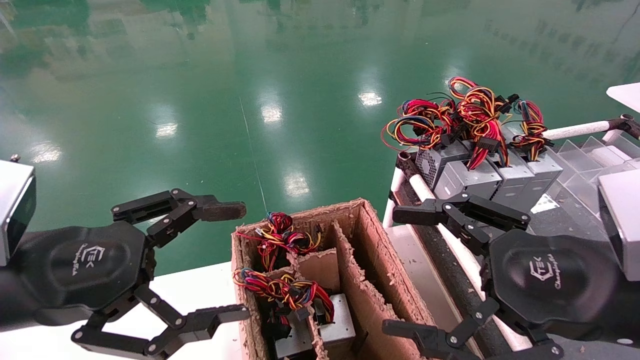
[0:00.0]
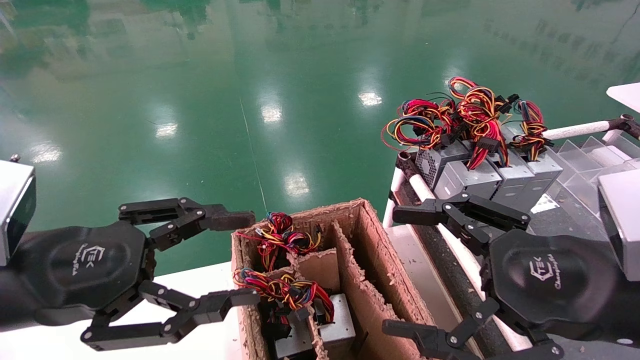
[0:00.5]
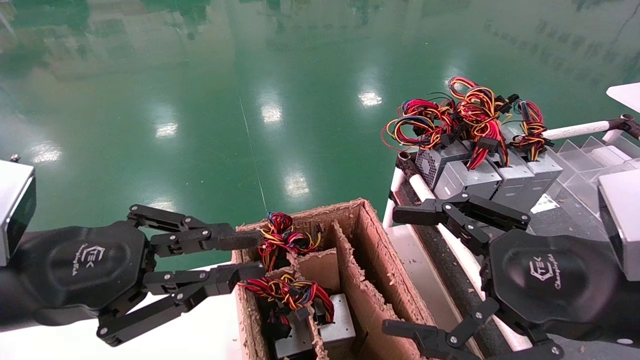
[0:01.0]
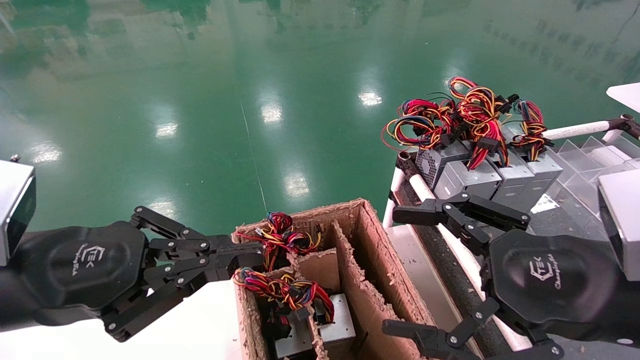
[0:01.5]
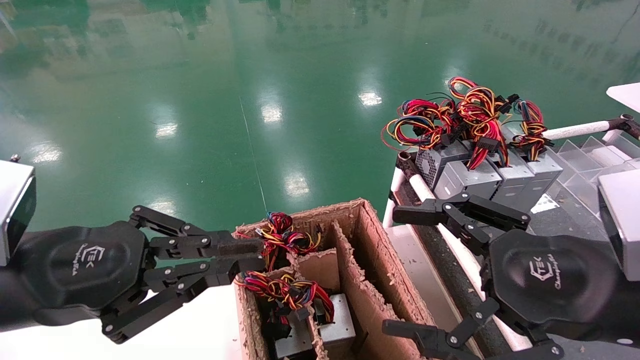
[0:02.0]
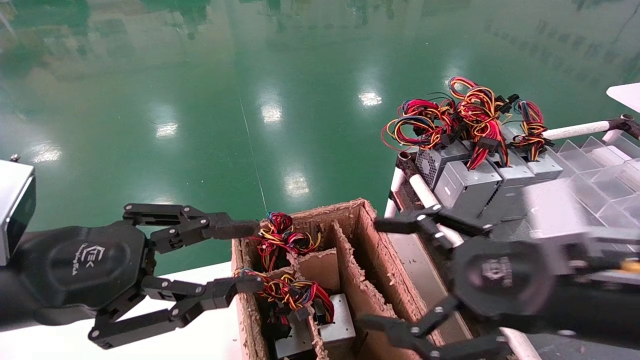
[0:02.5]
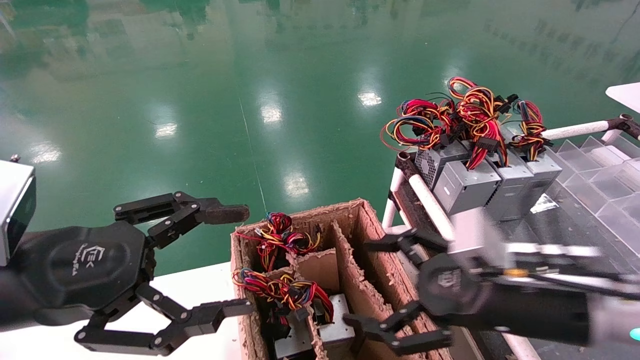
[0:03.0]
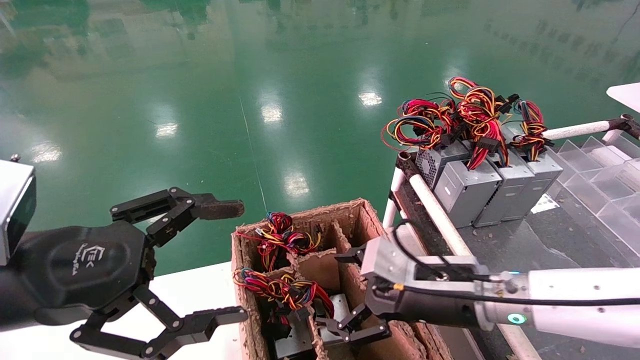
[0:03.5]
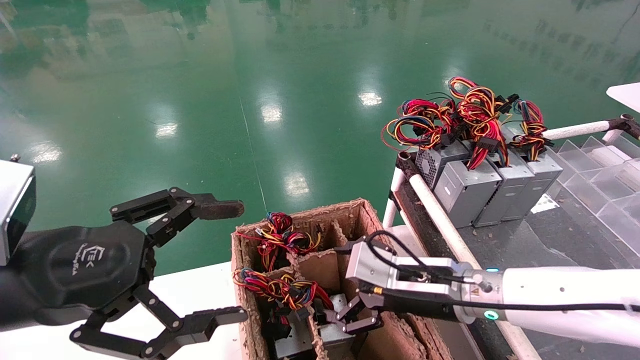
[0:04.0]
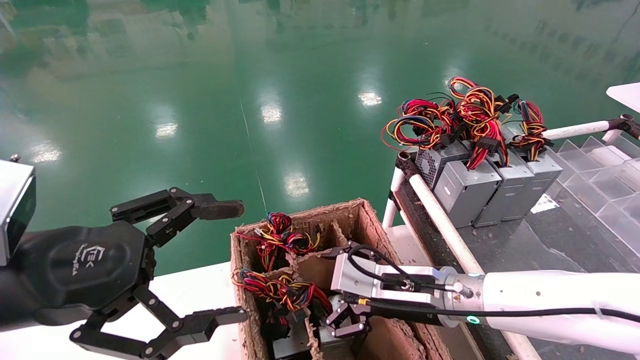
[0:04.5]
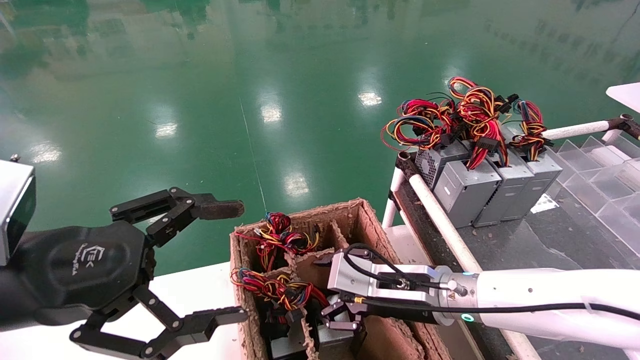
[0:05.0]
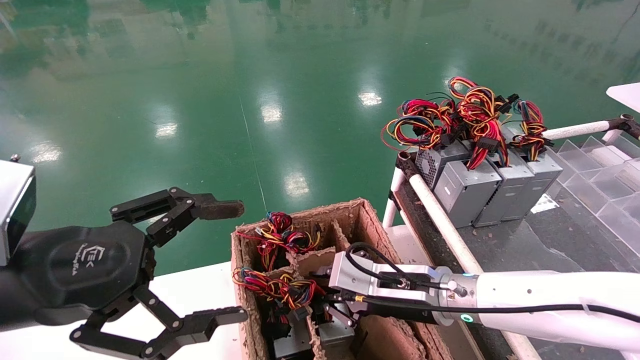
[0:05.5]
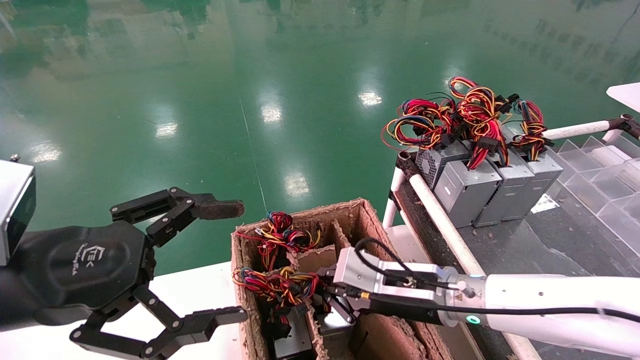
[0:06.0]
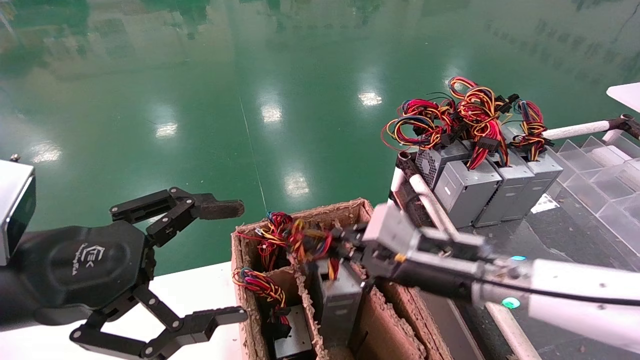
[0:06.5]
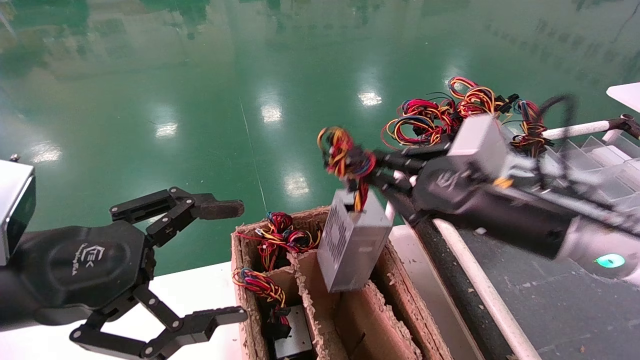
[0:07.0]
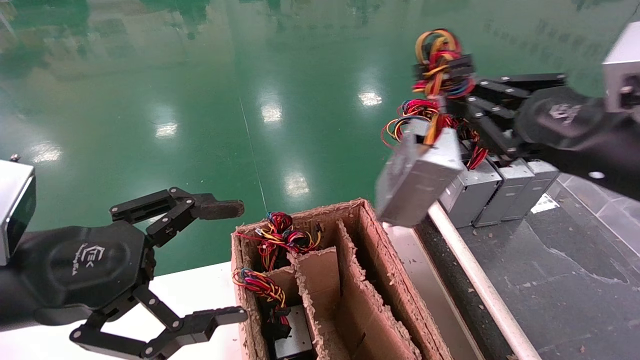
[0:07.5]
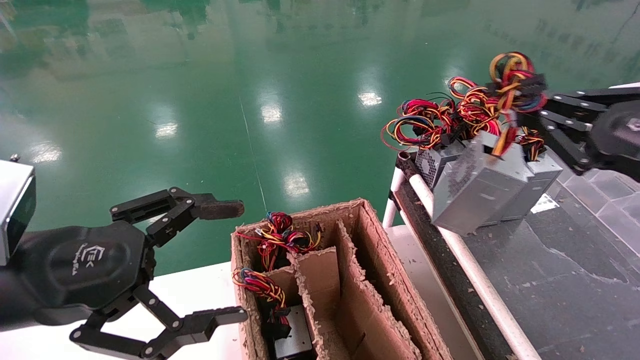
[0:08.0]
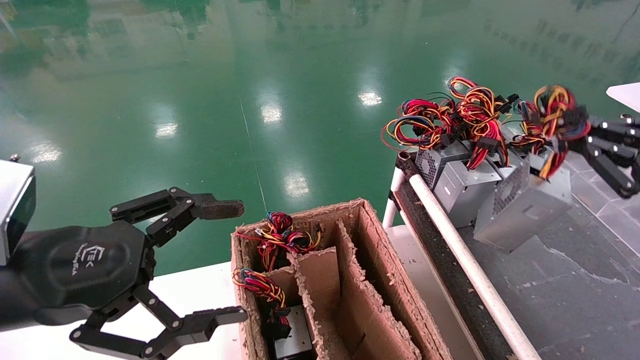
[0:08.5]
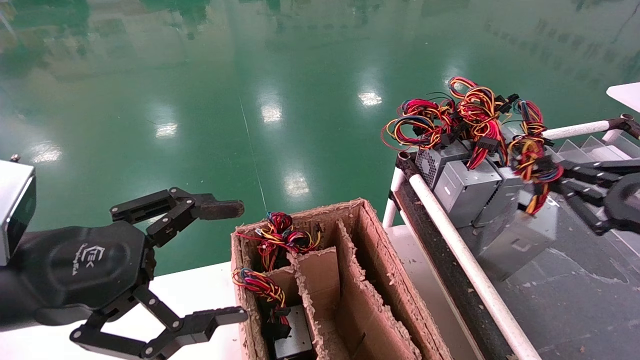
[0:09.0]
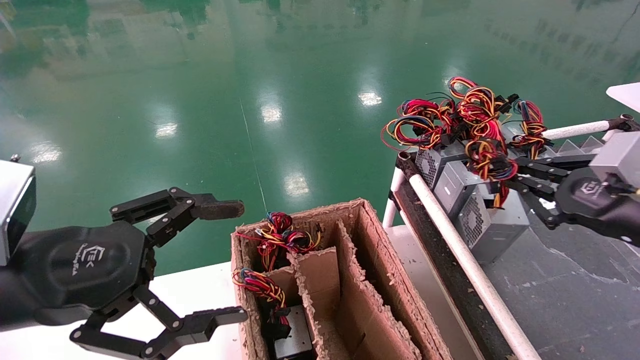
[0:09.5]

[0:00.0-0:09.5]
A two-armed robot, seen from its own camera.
Step, 0:01.5 to 0:05.5: Grab and lift the power supply from the large box.
0:00.0 to 0:02.0: The left gripper closes.
0:02.0 to 0:04.0: The right gripper heads forward, to the left and downward, covering about 20 cm, while the left gripper opens its fingers.
0:04.0 to 0:05.5: The right gripper closes up.
0:05.5 to 0:07.5: The right gripper heads upward, to the right and backward, covering roughly 25 cm.
0:07.5 to 0:09.5: The right gripper shifts some 10 cm to the right and downward.

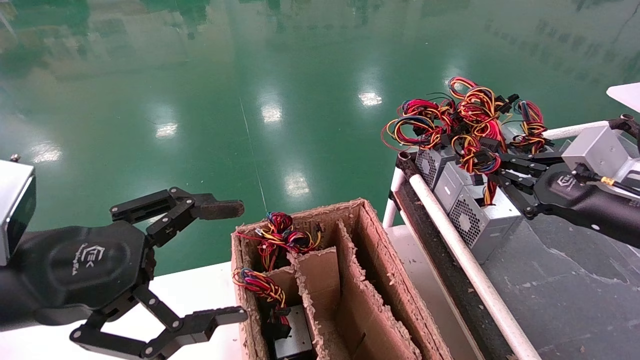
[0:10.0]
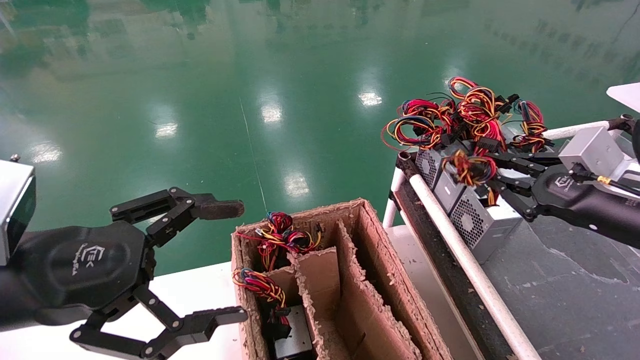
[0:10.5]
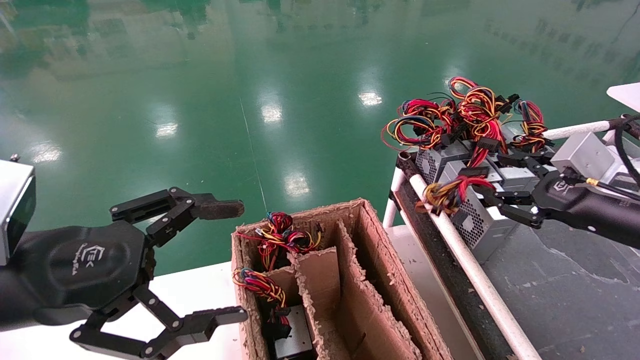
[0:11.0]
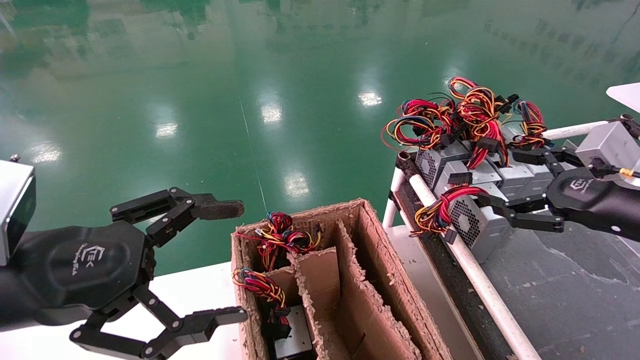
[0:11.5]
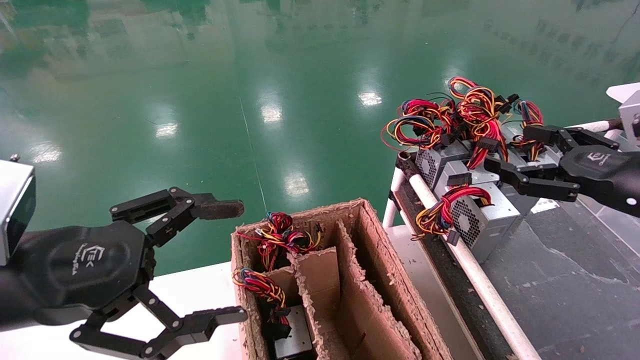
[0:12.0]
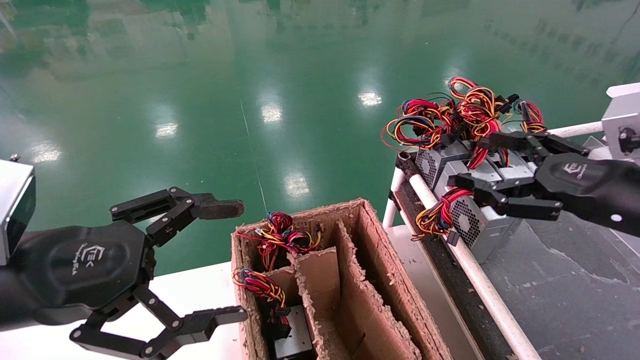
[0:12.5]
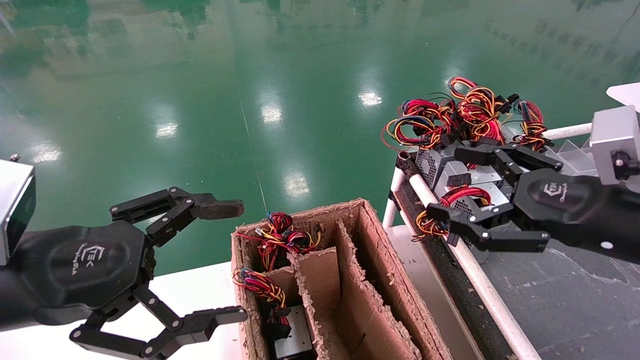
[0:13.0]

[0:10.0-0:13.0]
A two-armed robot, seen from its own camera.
0:10.0 to 0:11.5: The right gripper opens.
0:11.5 to 0:13.0: The right gripper heads to the left, covering roughly 5 cm.

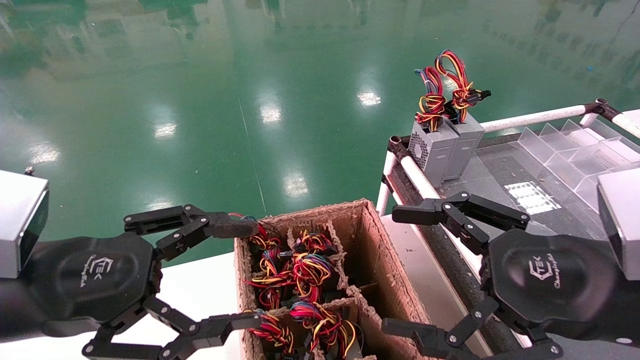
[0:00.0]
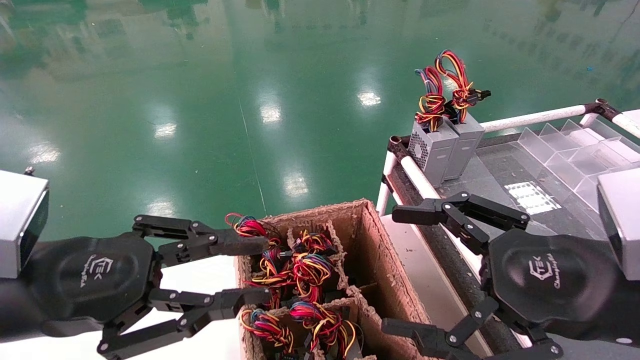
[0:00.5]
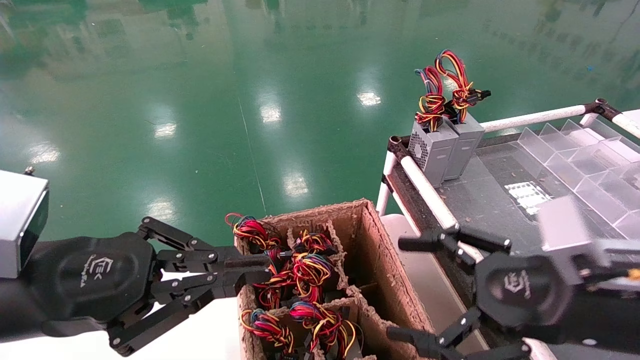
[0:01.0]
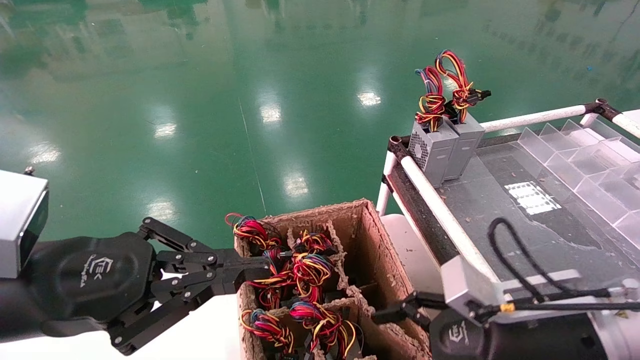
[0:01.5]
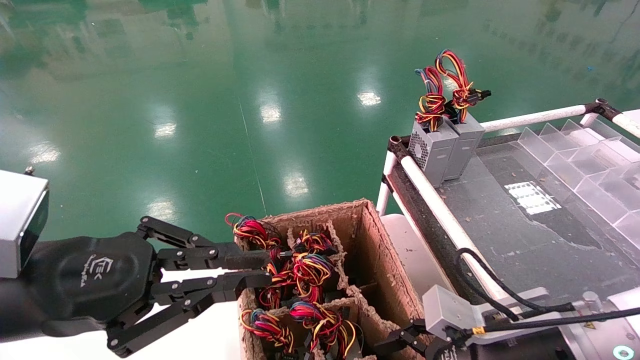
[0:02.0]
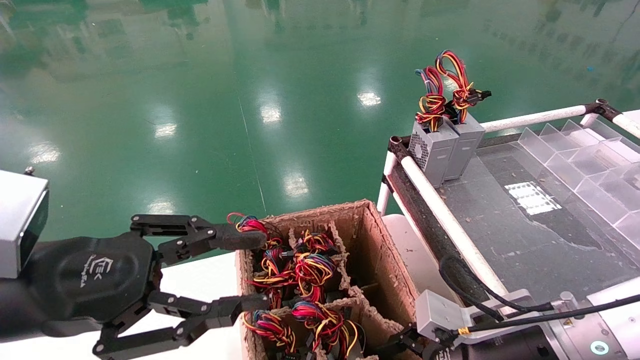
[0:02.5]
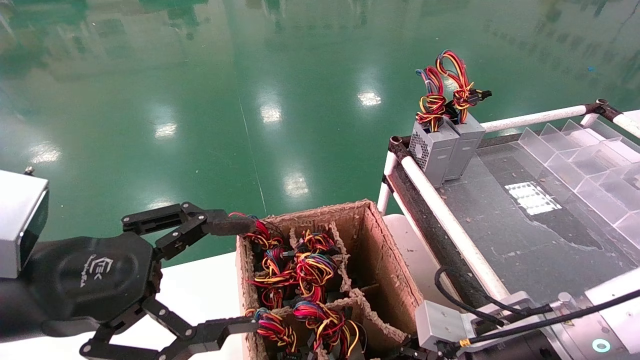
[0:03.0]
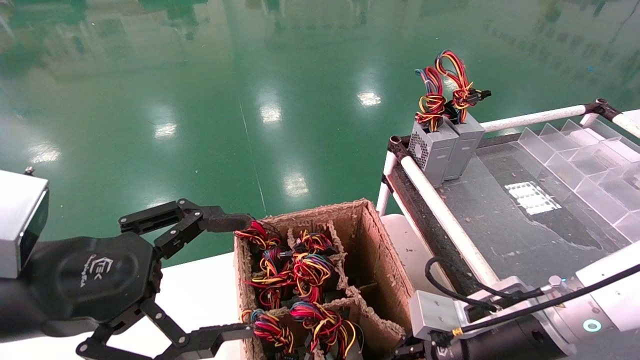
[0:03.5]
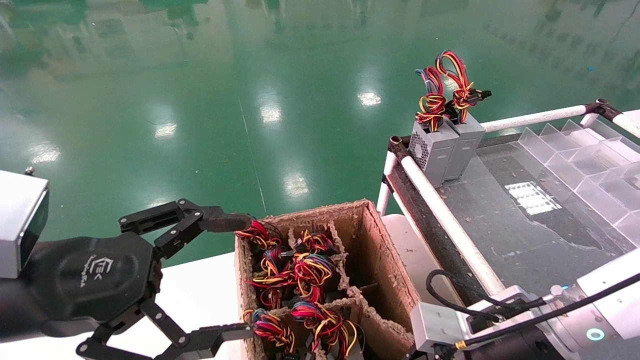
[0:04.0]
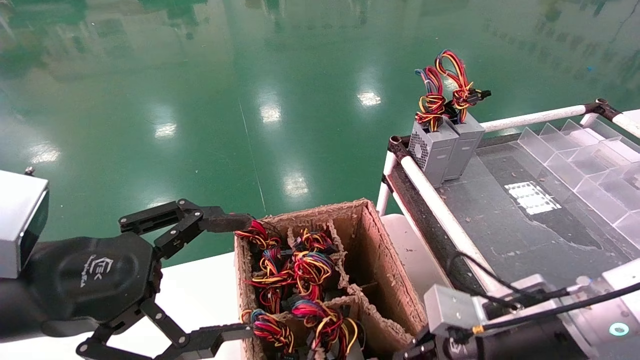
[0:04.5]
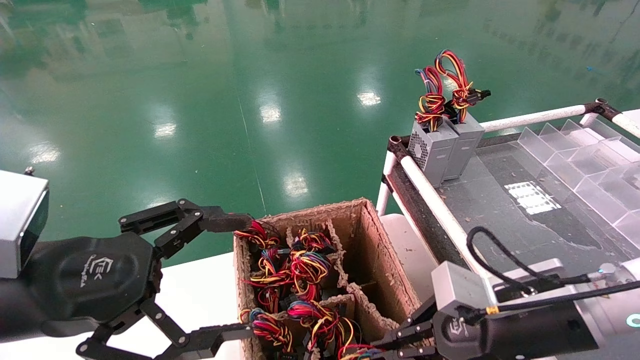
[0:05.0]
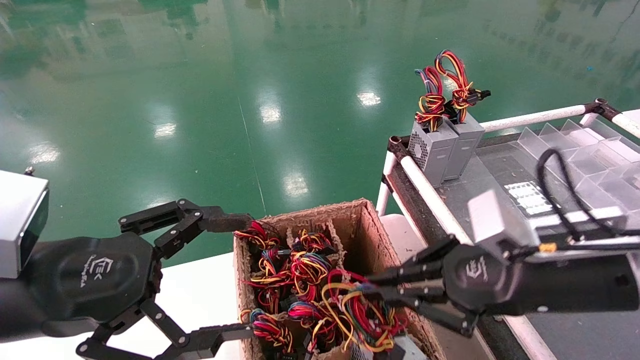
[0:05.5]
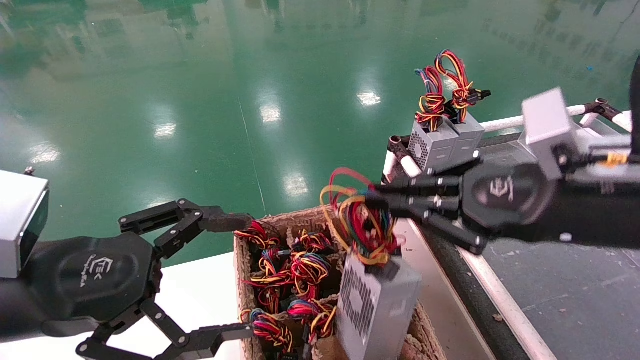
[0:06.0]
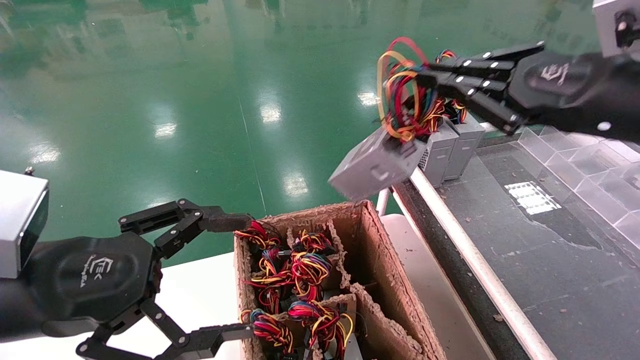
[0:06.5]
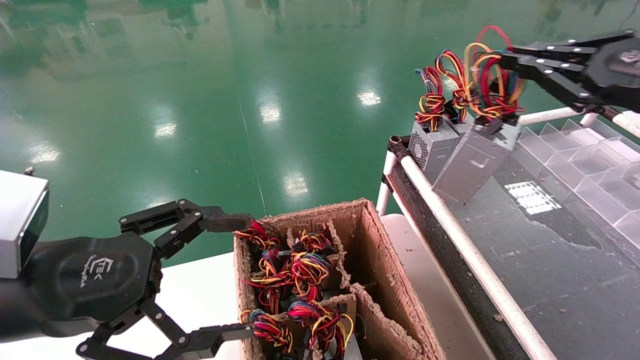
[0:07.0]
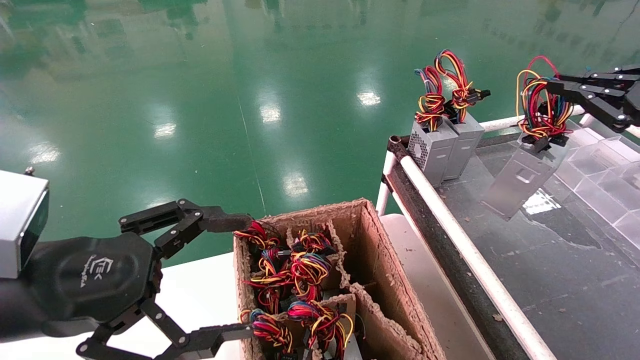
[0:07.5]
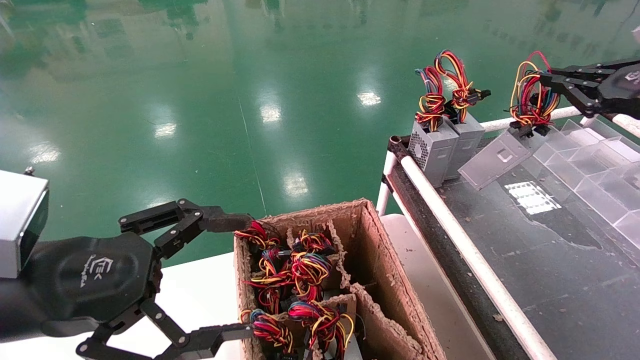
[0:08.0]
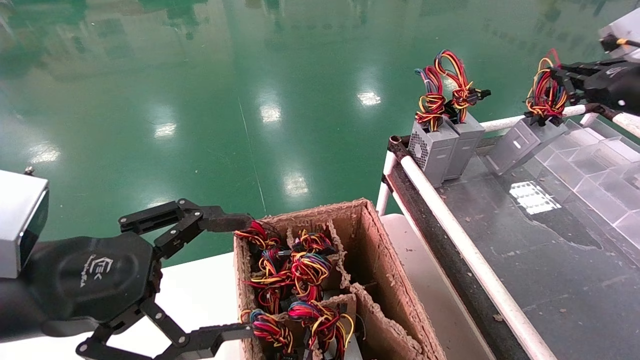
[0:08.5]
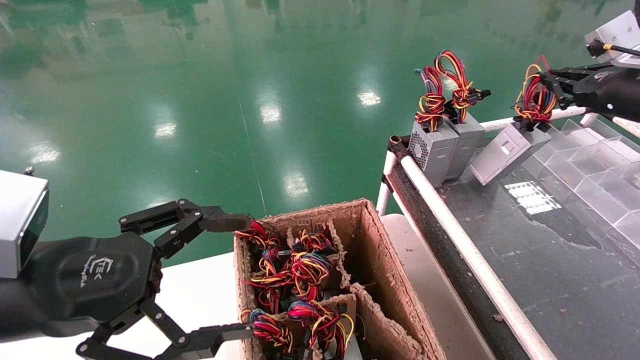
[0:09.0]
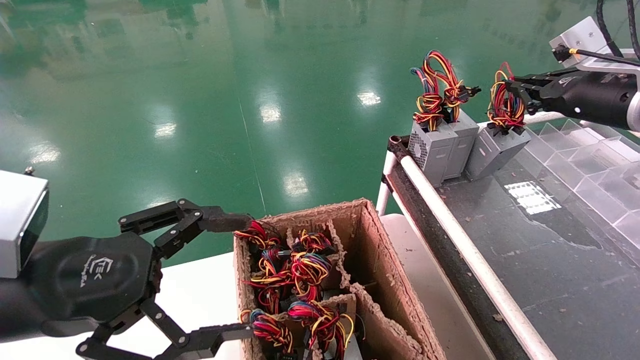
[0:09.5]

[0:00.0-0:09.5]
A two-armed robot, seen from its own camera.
Step, 0:01.5 to 0:03.5: Grab and lift the power supply from the large box.
0:00.0 to 0:02.0: The left gripper closes its fingers. The right gripper travels downward and forward by roughly 15 cm.
0:02.0 to 0:04.0: The right gripper closes its fingers. Meanwhile the left gripper opens its fingers.
0:04.0 to 0:05.5: The right gripper heads upward, covering approximately 10 cm.
0:05.5 to 0:07.5: The right gripper shifts roughly 25 cm to the right and upward.
0:07.5 to 0:09.5: The right gripper shifts some 10 cm forward.
